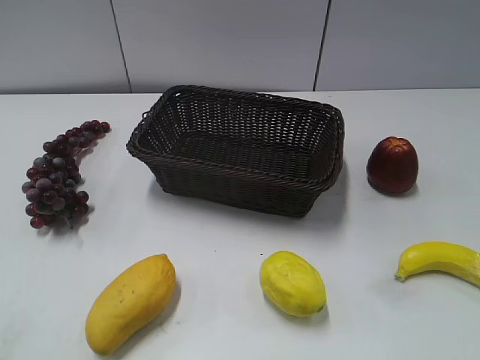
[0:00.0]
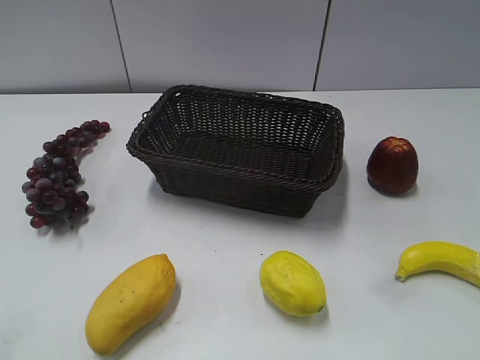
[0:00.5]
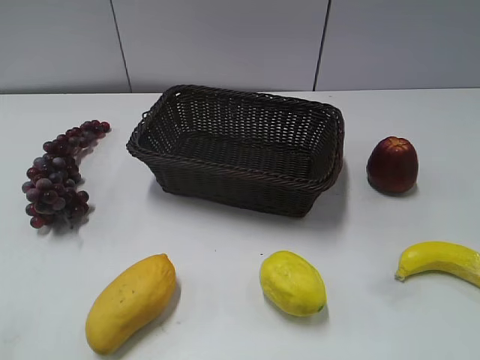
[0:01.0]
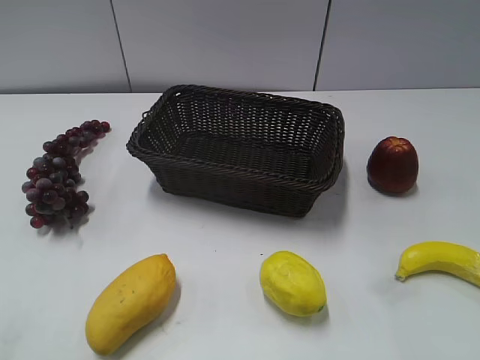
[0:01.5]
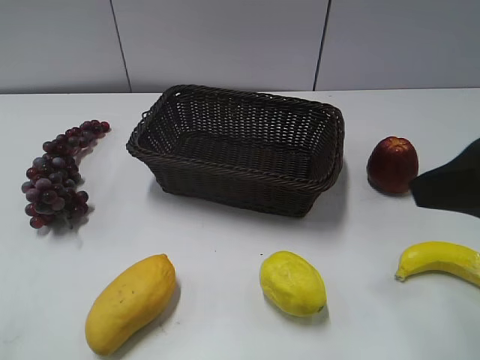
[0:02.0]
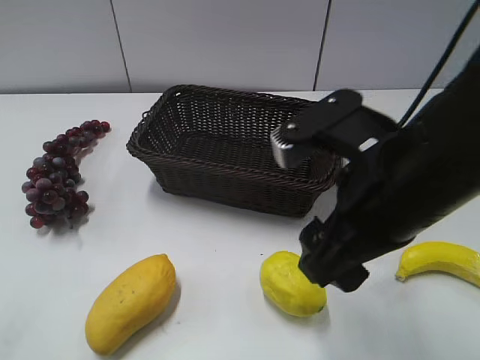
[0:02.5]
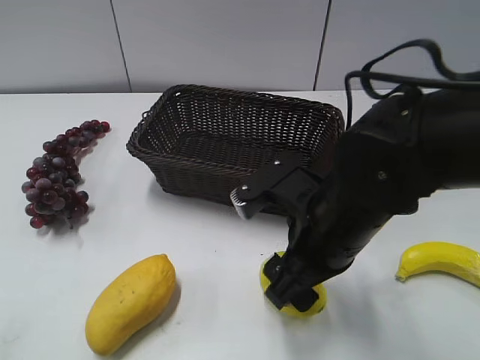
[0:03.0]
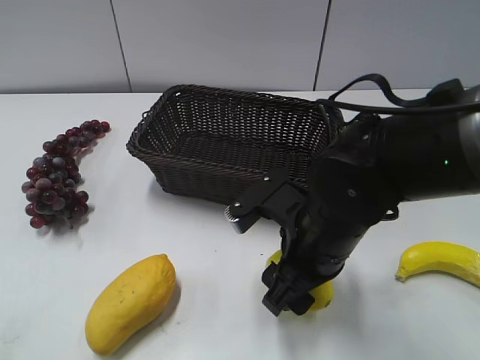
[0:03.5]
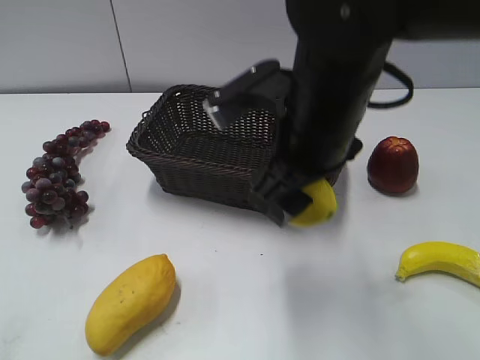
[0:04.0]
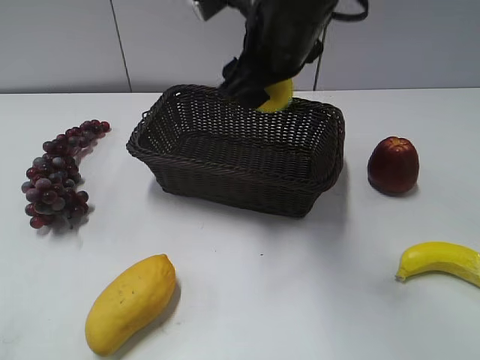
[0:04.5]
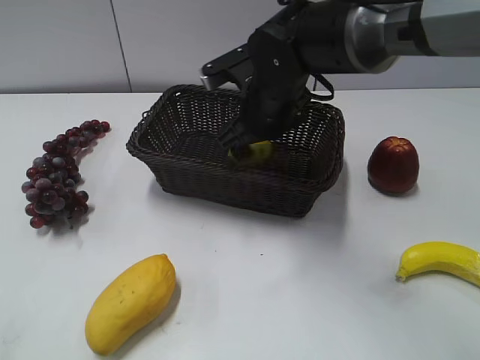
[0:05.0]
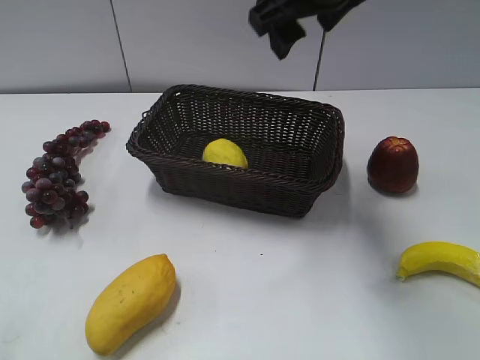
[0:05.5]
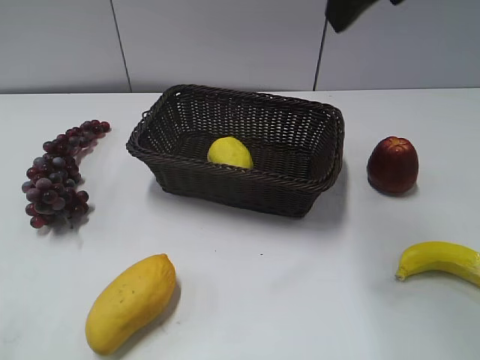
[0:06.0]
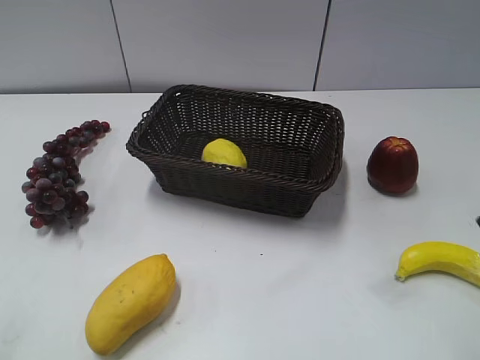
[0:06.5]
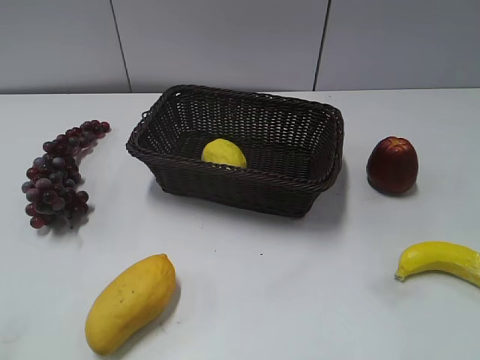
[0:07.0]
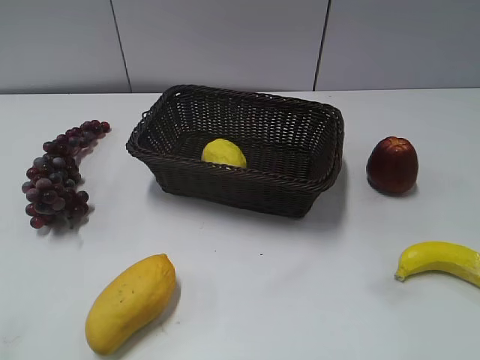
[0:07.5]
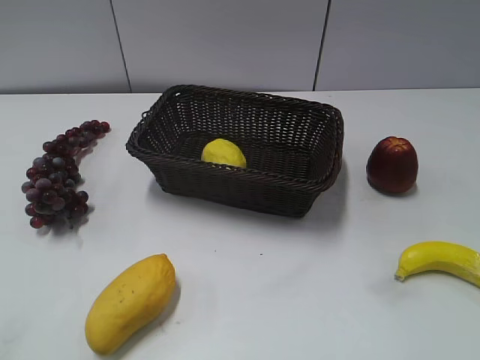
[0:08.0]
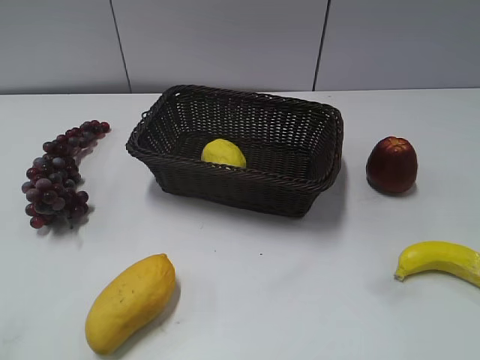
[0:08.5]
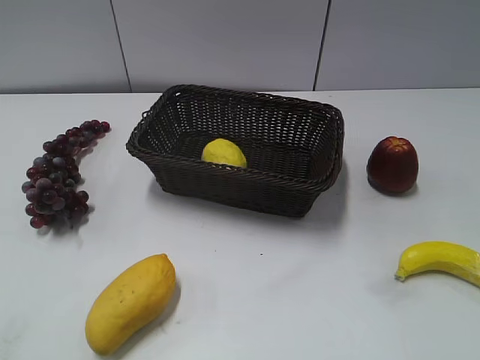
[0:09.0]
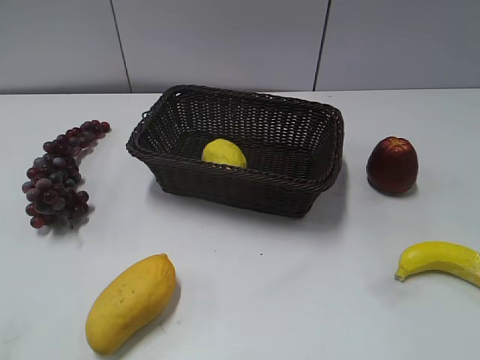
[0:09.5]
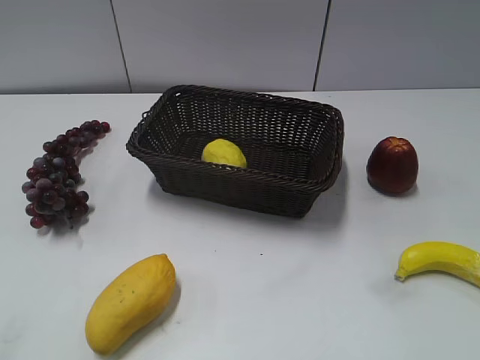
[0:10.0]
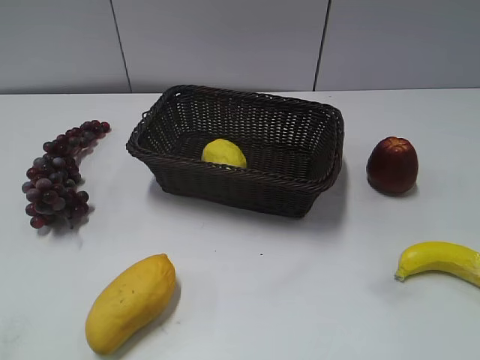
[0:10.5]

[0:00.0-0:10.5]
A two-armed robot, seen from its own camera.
Step, 0:02.0 to 0:03.5: Grasp the lemon with right gripper.
Step, 0:04.0 to 0:04.5: Place the lemon in the basket with right gripper.
0:02.0 to 0:04.0: The right gripper goes about 20 cm to the left, forward and downward.
0:04.0 to 0:06.5: The right gripper swings up and down, approximately 25 cm each way, with 3 reversals.
